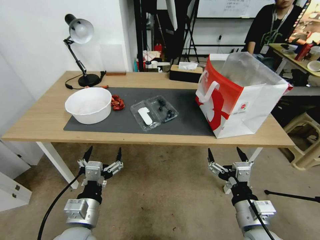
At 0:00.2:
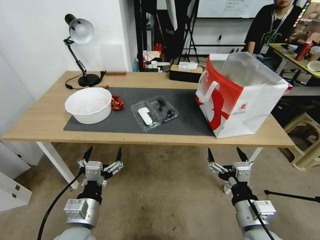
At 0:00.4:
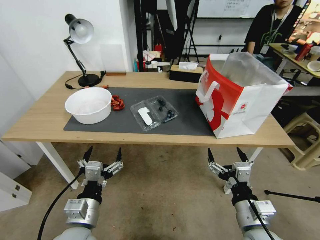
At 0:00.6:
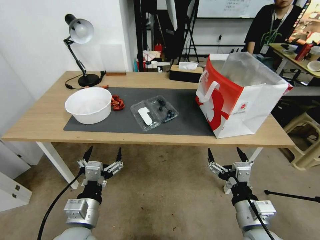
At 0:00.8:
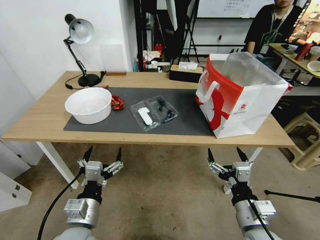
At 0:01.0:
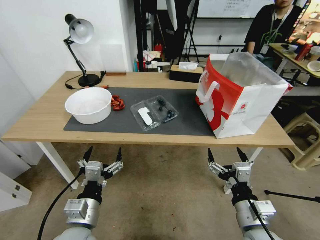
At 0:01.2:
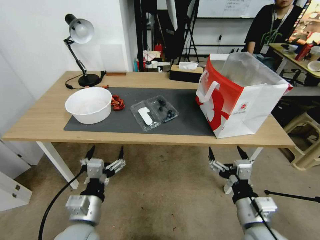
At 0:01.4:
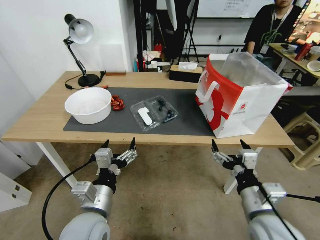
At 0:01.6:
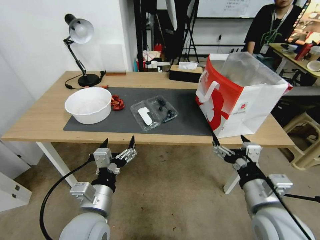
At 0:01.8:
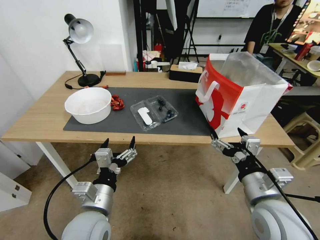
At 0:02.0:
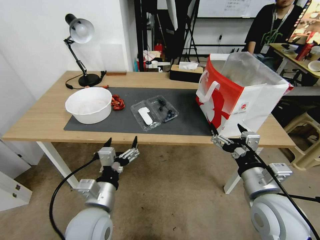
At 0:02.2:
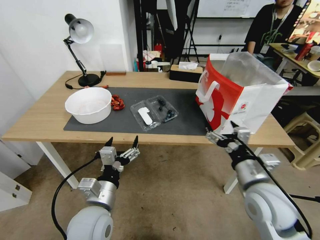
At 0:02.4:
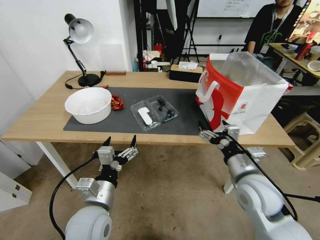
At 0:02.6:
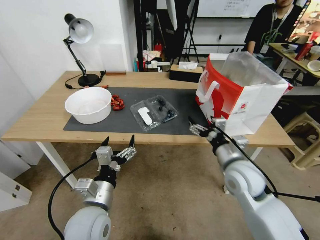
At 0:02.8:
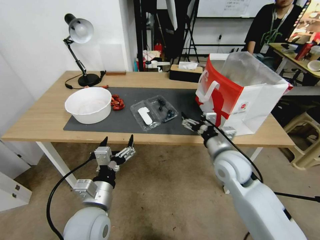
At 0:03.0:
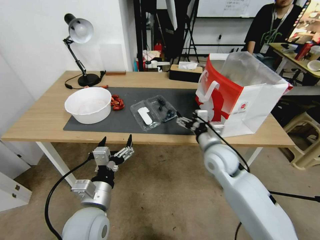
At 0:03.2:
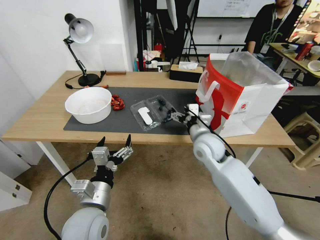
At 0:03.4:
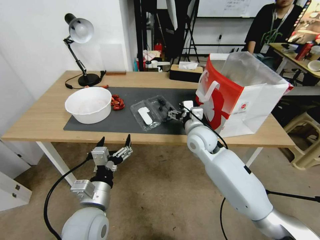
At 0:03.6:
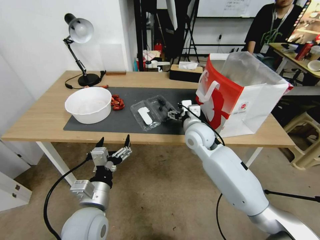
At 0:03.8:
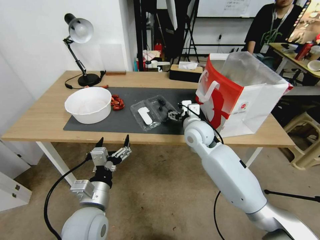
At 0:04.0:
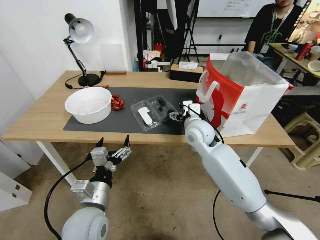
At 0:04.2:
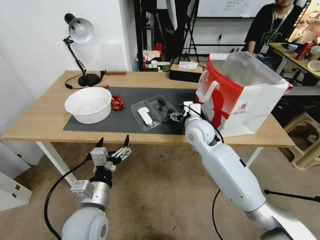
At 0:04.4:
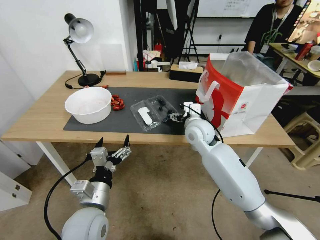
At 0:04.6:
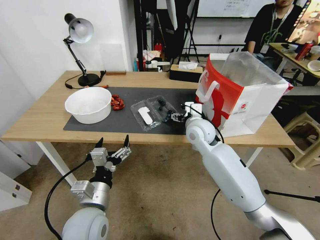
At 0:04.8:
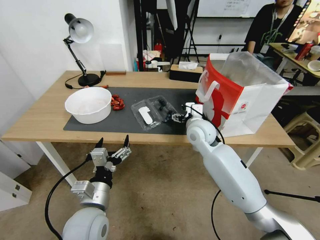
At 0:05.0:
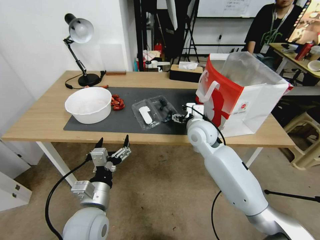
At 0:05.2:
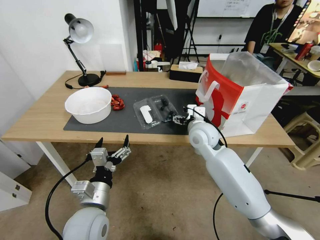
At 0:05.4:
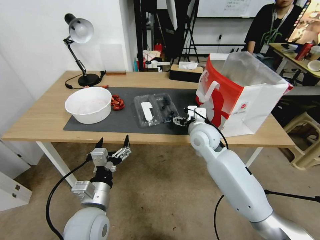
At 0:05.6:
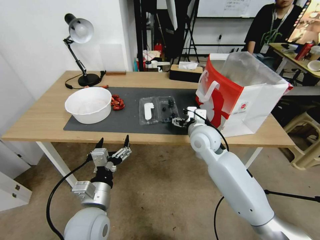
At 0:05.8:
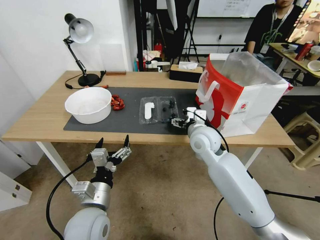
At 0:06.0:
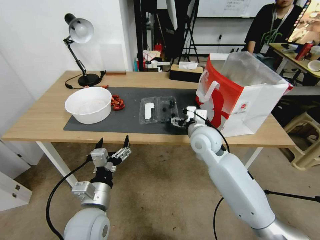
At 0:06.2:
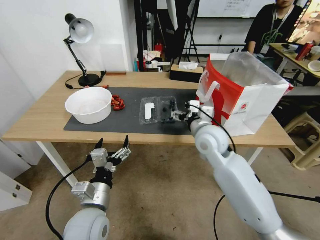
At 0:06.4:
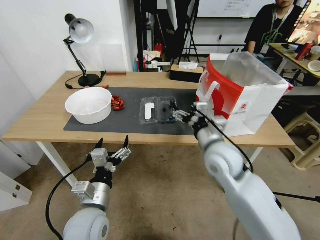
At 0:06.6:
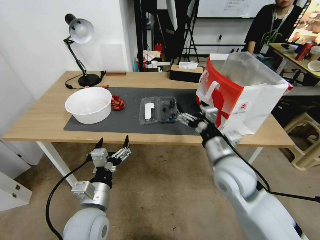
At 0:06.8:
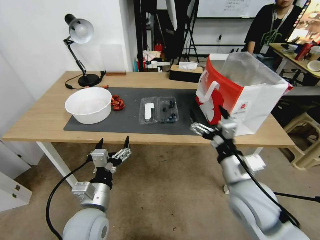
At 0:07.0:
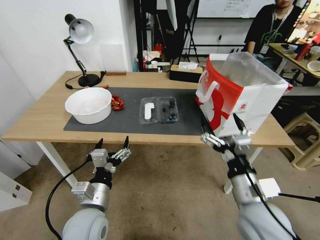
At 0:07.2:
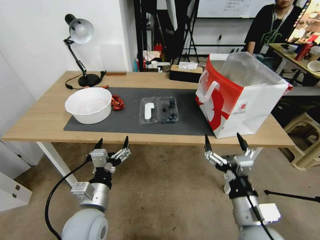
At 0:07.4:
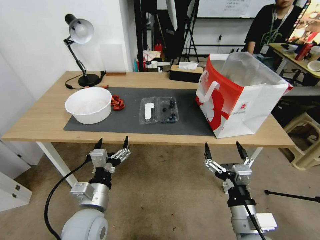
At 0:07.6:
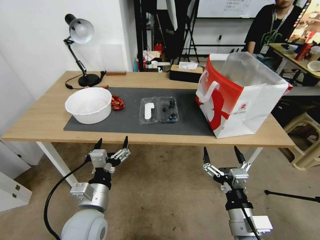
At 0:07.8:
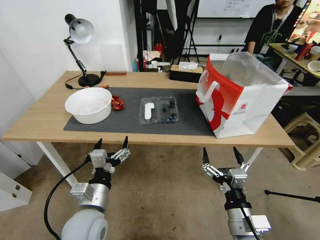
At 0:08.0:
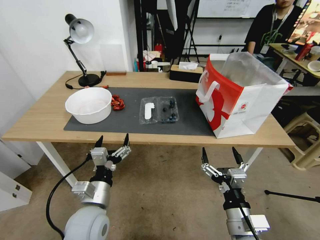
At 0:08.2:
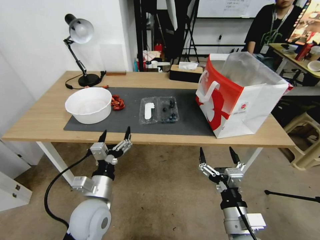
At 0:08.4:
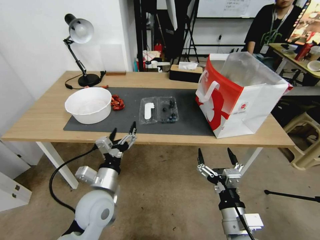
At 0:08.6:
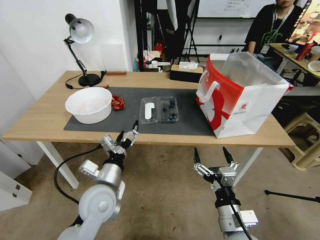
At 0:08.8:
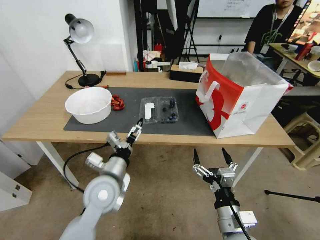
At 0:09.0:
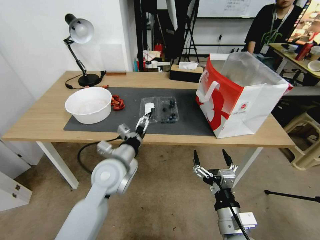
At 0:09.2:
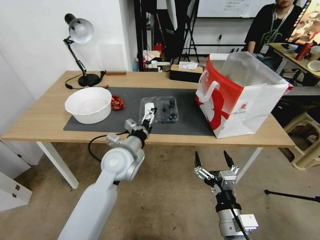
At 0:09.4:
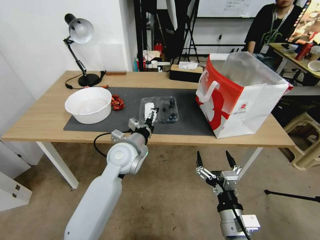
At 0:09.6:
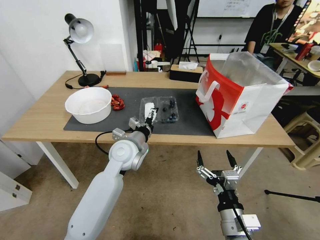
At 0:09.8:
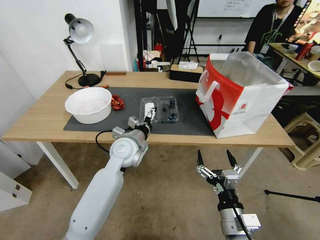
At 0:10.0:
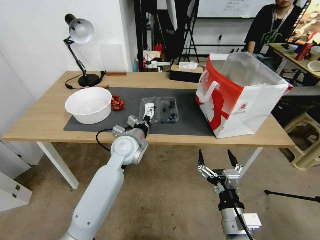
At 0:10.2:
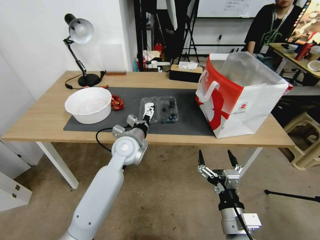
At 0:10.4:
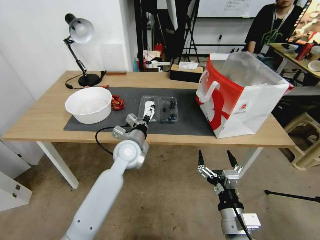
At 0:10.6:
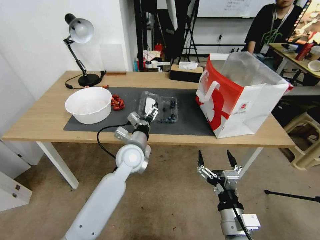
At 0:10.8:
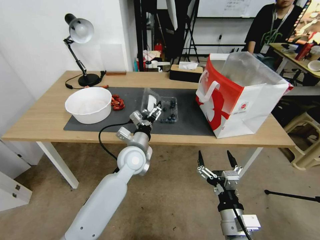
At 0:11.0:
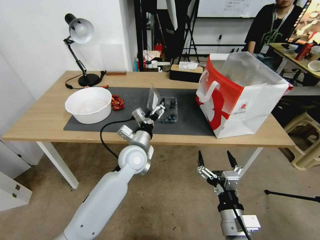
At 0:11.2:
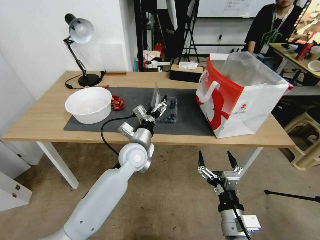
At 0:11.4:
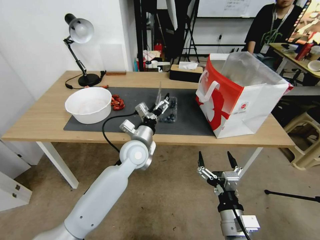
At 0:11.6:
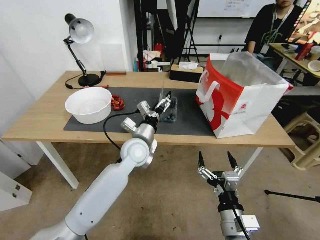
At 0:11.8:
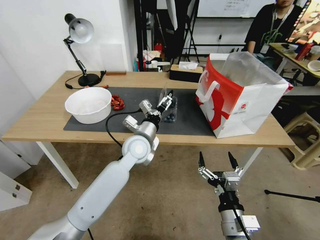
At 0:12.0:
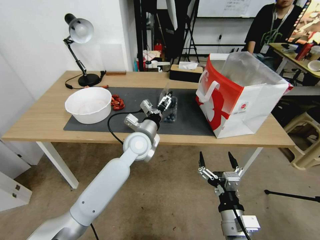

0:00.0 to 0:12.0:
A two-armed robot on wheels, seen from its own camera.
Task of the whole recording: Close the takeout container lid, then place the container into the takeout bag.
0:01.6 to 0:03.0: The right gripper travels forward by approximately 20 cm.
0:03.0 to 0:04.4: The right gripper shifts some 10 cm forward and to the left.
0:04.4 to 0:06.0: There are only small adjustments of the grippers.
0:06.0 to 0:07.6: The right gripper moves backward, approximately 30 cm.
0:07.6 to 0:09.0: The left gripper moves forward, approximately 10 cm.
0:09.0 to 0:10.4: The left gripper heads forward, covering about 10 cm.

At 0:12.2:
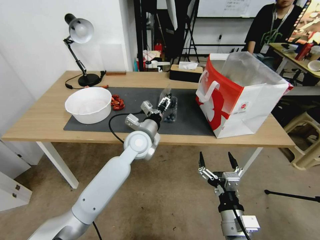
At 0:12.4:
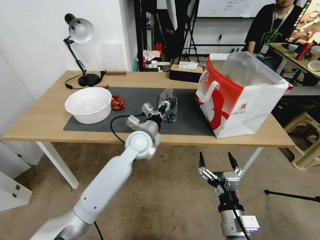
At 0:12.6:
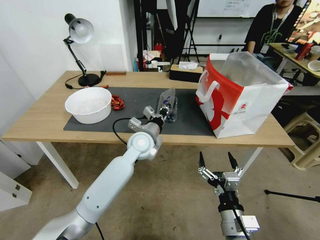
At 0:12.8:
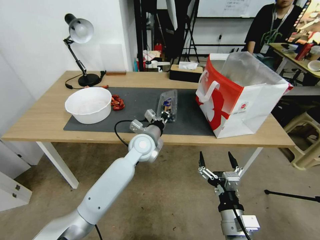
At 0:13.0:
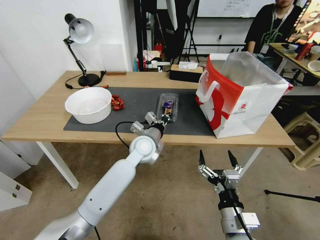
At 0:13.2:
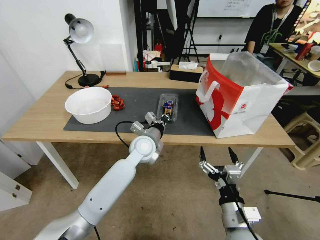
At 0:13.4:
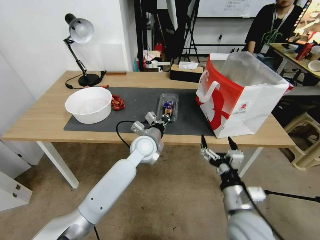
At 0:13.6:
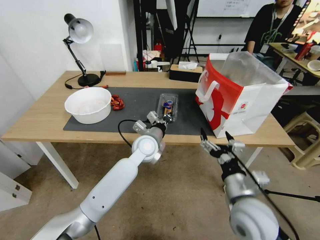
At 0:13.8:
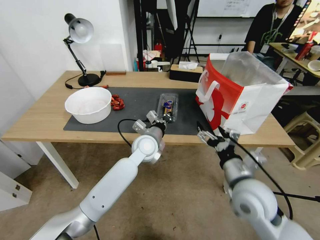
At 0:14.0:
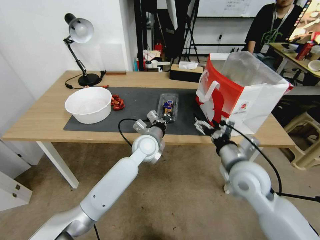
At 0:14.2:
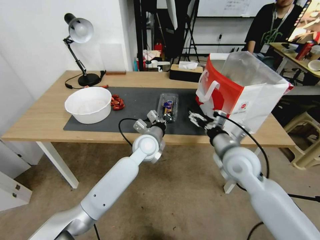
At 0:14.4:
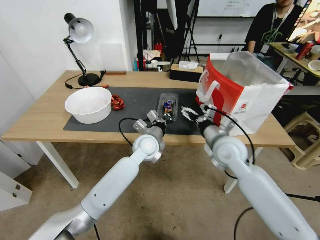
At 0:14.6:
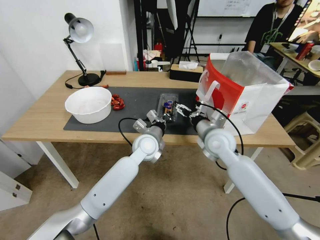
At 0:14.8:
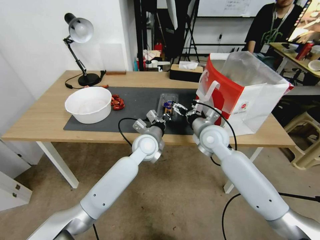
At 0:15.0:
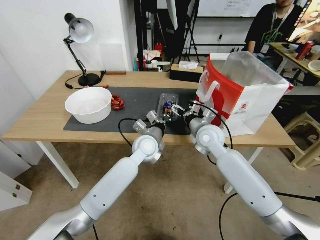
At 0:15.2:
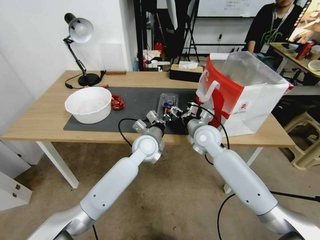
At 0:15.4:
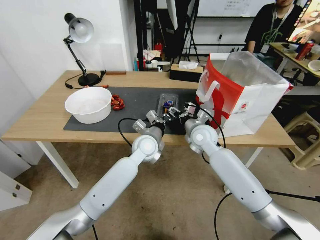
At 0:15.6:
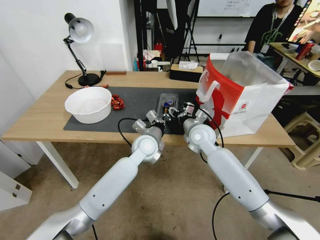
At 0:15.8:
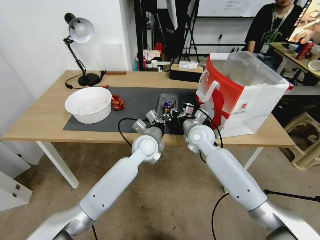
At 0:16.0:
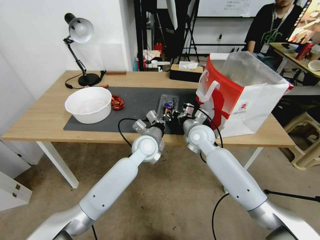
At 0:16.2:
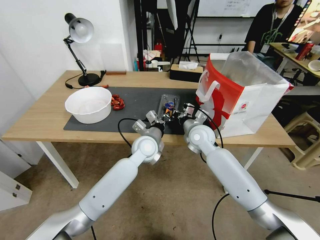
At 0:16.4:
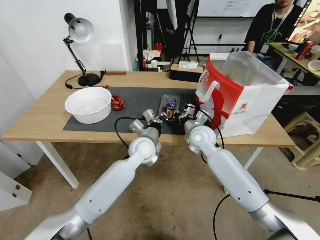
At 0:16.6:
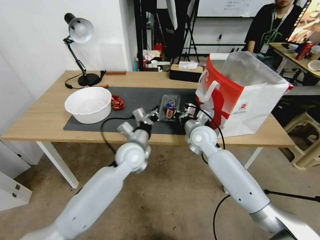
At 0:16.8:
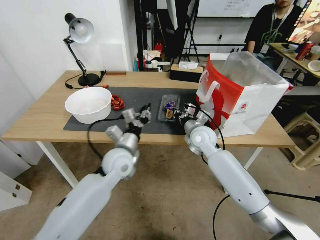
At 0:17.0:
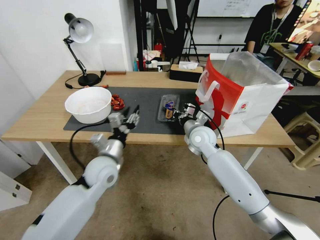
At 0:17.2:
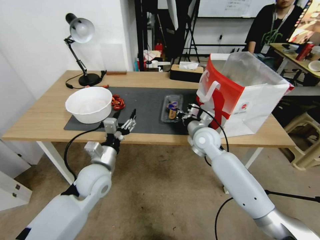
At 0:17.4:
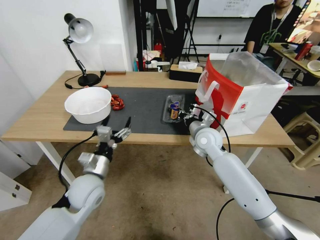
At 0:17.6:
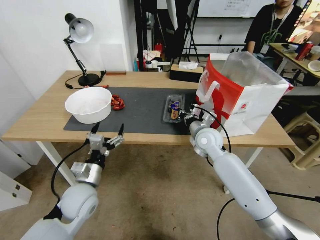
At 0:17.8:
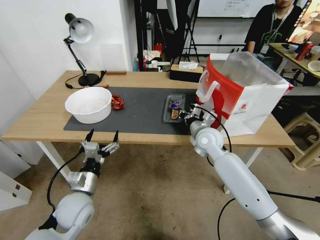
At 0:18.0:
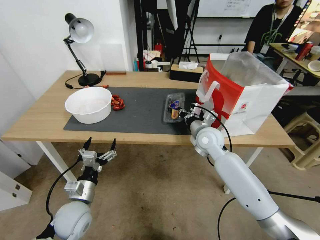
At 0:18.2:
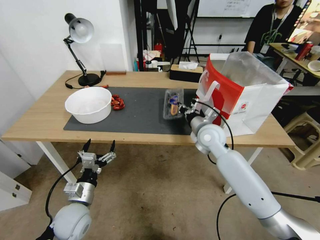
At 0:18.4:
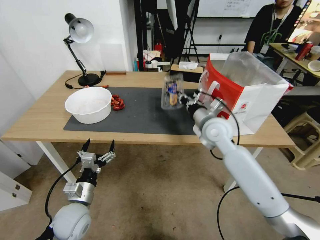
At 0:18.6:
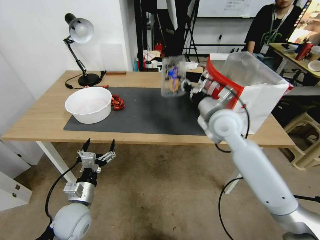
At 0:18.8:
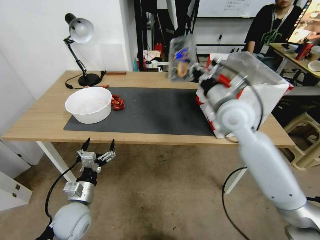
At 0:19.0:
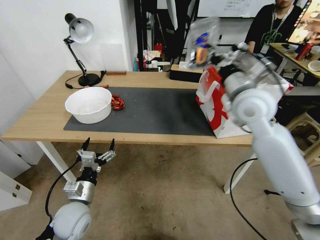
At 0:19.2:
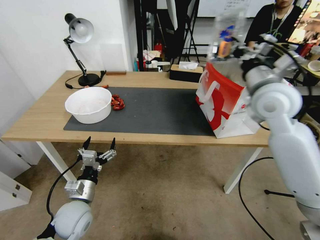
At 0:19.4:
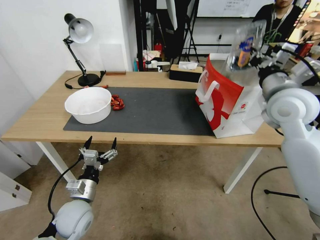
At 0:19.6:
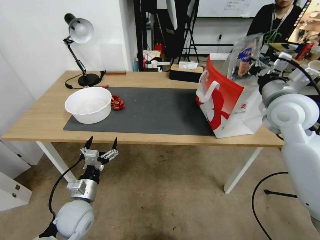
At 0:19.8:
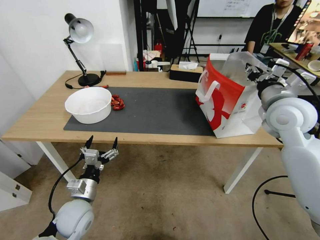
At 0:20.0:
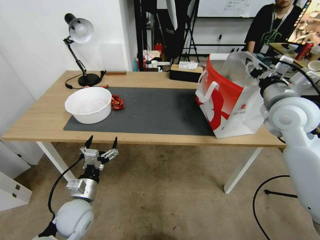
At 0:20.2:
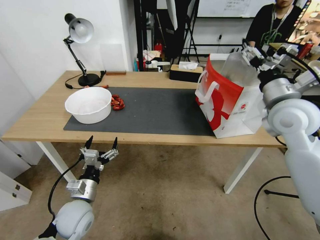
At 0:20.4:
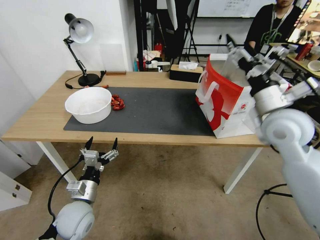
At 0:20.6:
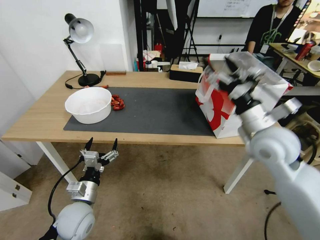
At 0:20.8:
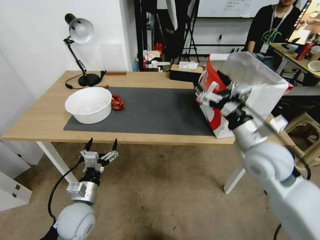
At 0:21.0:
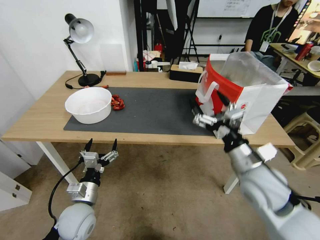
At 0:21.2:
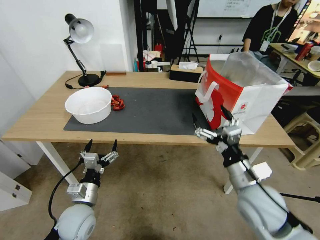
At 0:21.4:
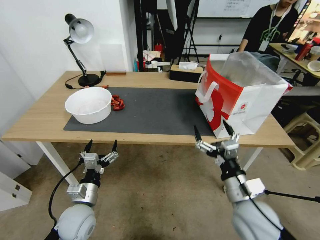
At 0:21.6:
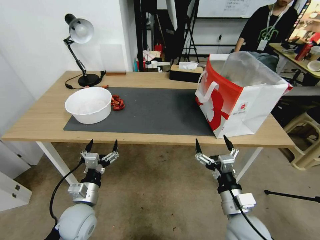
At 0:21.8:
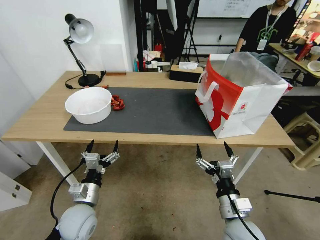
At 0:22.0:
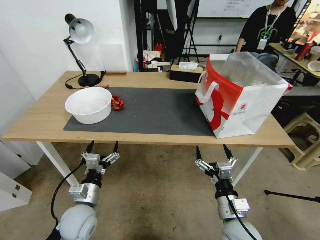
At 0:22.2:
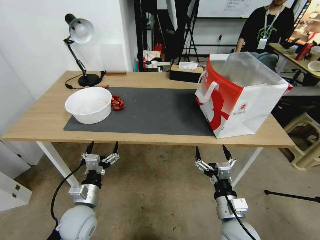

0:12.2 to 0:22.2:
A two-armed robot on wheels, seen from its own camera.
Task of the whole recording: Close the takeout container lid, then place the container into the takeout bag.
0:12.2 to 0:13.6: The left gripper closes, while the right gripper heads forward and upward, covering about 10 cm.
0:13.6 to 0:15.0: The right gripper is displaced forward by roughly 25 cm.
0:15.0 to 0:16.4: The right gripper closes up.
0:16.4 to 0:18.0: The left gripper heads to the left and backward, covering approximately 25 cm, and opens up.
0:18.0 to 0:19.4: The right gripper travels upward and to the right by about 25 cm.
0:19.4 to 0:20.8: The right gripper moves downward, backward and to the left, about 15 cm, and opens.
0:20.8 to 0:22.2: The right gripper travels downward and backward by approximately 20 cm.
